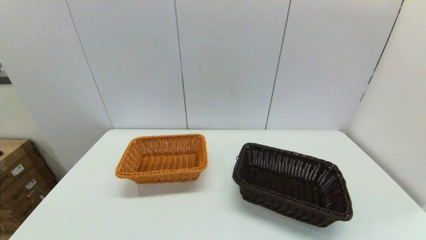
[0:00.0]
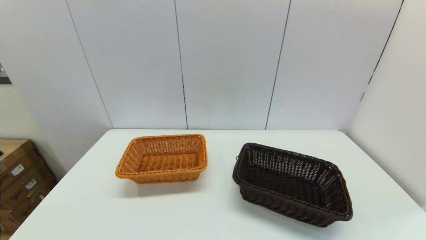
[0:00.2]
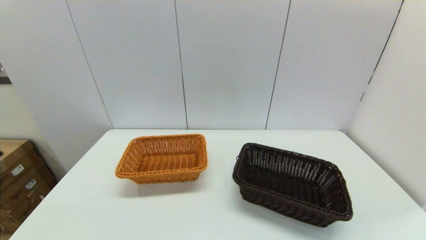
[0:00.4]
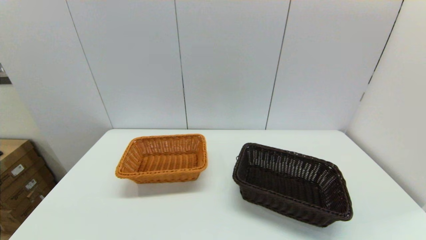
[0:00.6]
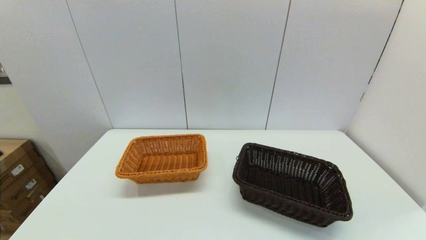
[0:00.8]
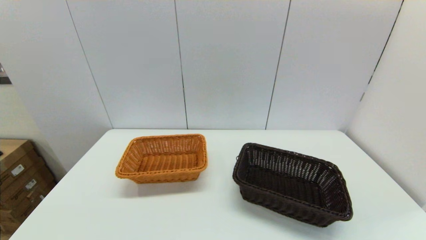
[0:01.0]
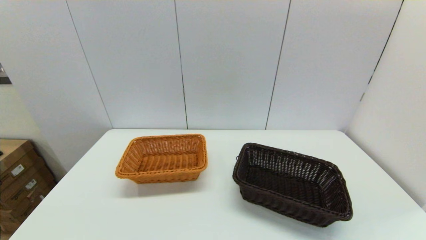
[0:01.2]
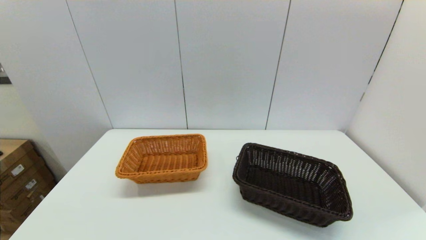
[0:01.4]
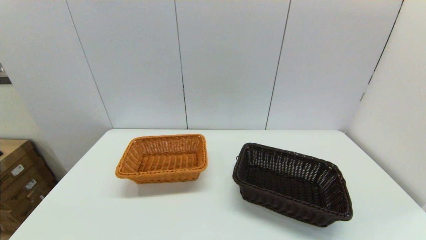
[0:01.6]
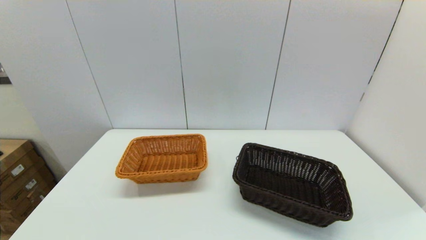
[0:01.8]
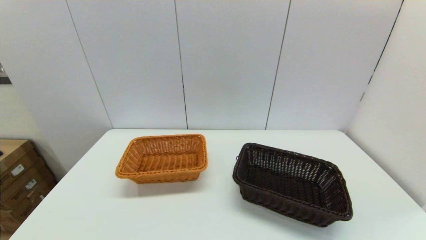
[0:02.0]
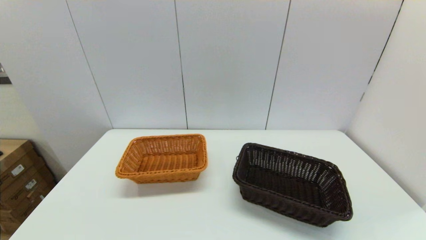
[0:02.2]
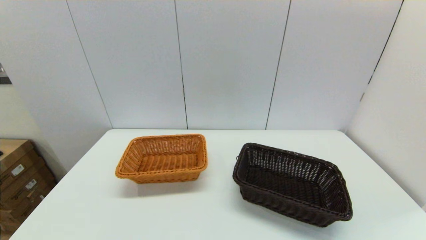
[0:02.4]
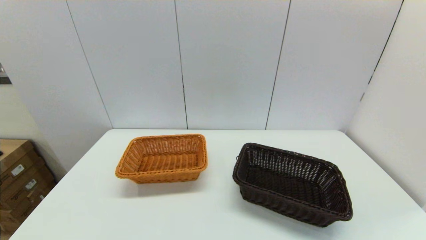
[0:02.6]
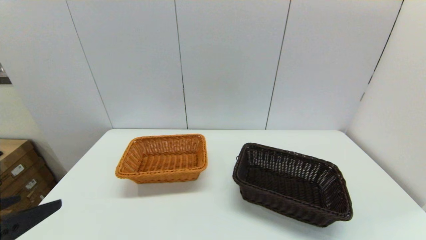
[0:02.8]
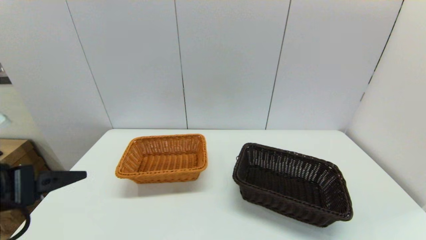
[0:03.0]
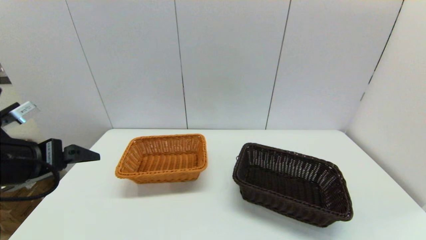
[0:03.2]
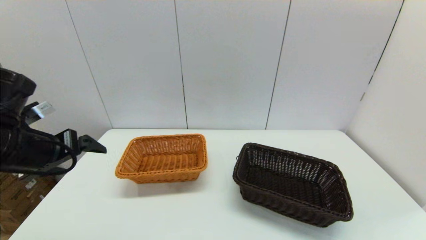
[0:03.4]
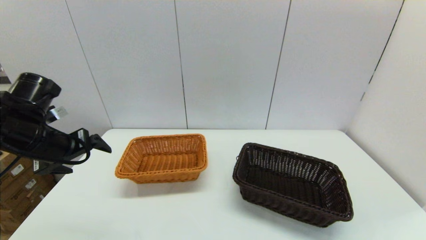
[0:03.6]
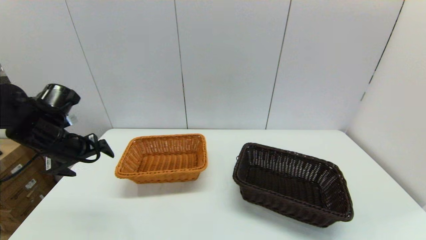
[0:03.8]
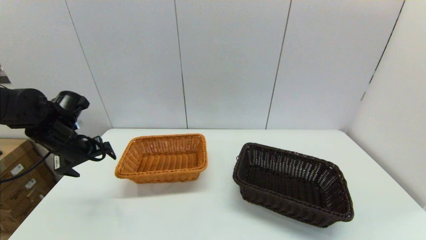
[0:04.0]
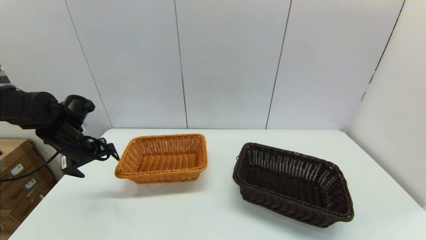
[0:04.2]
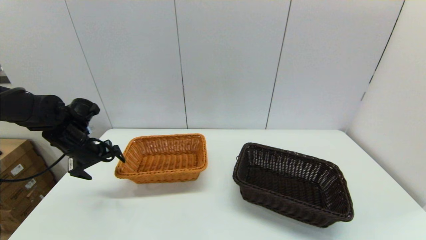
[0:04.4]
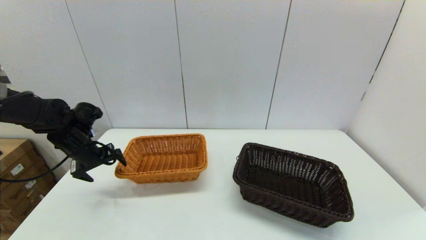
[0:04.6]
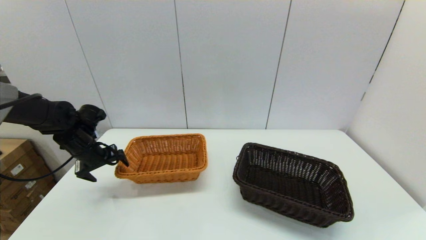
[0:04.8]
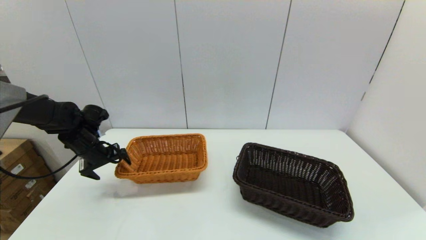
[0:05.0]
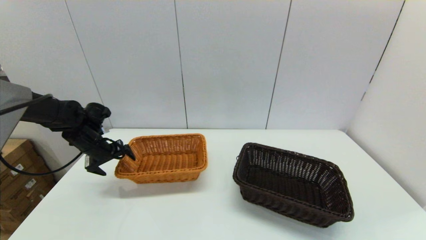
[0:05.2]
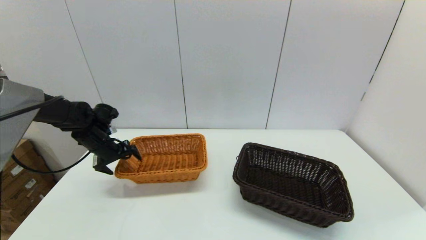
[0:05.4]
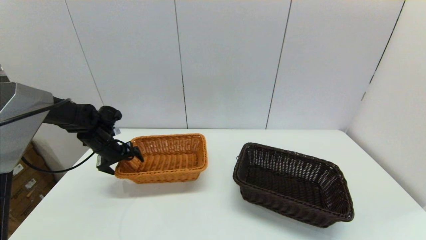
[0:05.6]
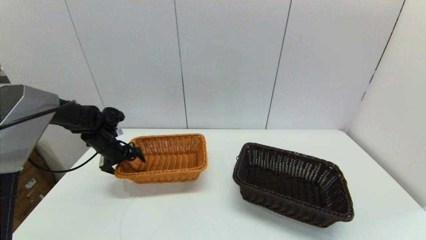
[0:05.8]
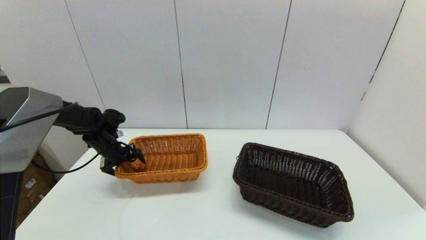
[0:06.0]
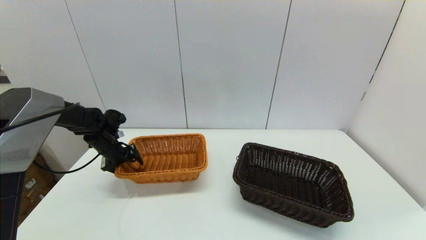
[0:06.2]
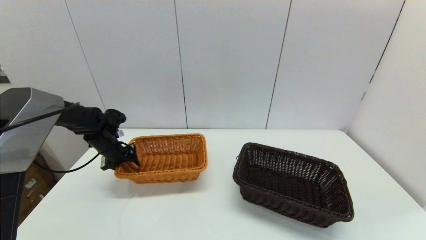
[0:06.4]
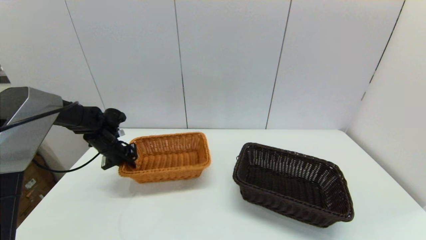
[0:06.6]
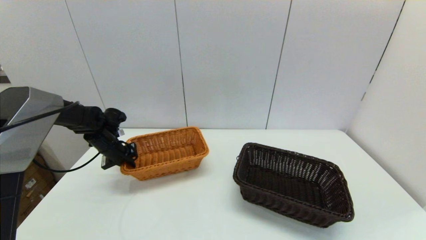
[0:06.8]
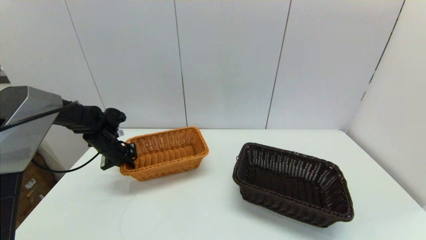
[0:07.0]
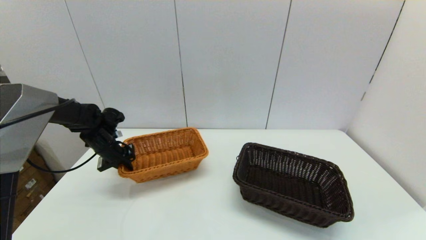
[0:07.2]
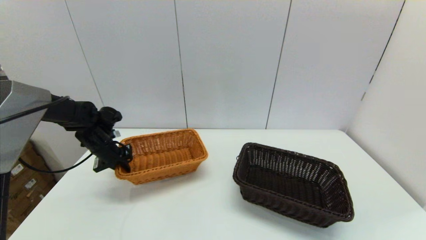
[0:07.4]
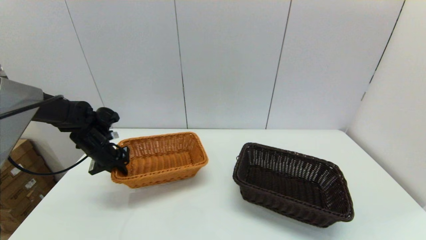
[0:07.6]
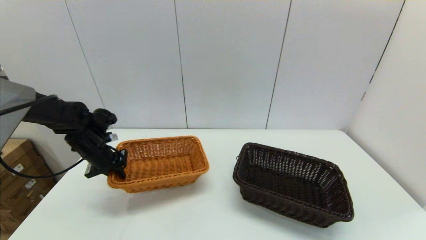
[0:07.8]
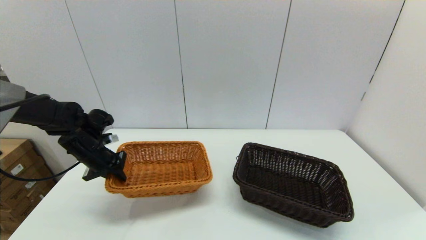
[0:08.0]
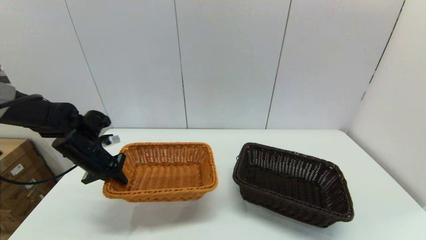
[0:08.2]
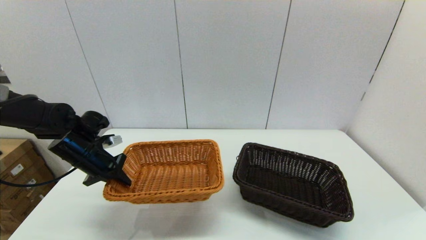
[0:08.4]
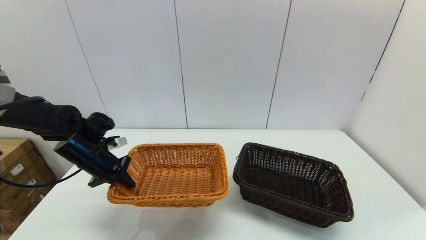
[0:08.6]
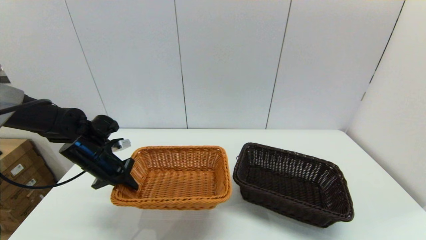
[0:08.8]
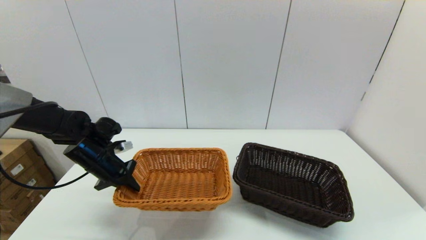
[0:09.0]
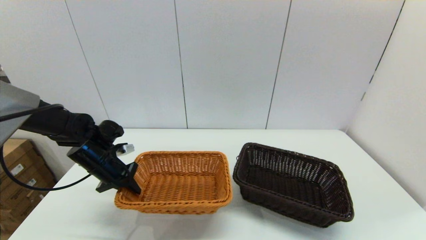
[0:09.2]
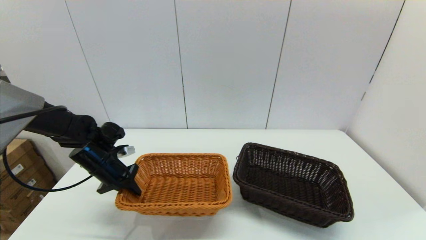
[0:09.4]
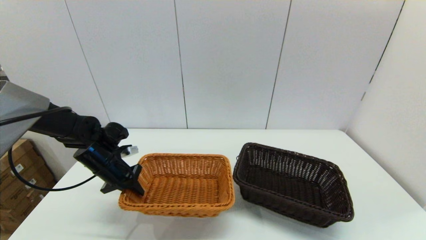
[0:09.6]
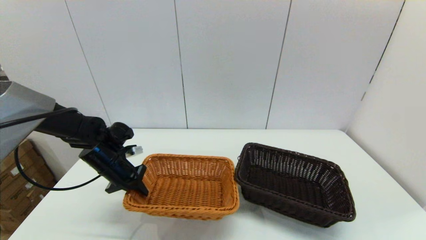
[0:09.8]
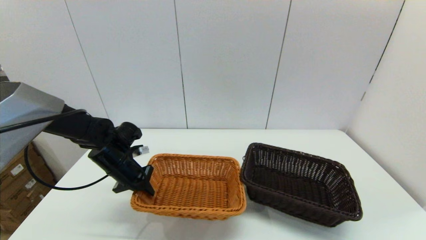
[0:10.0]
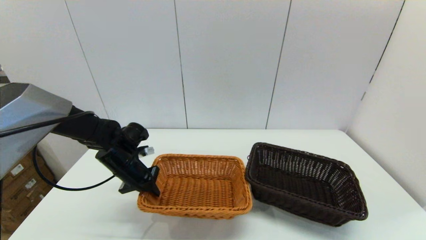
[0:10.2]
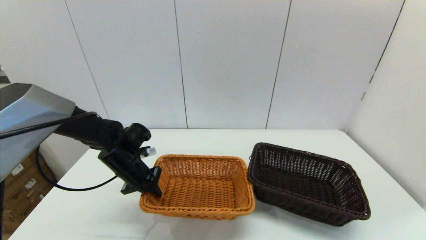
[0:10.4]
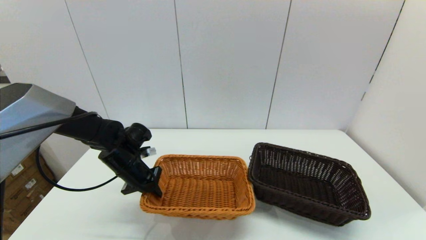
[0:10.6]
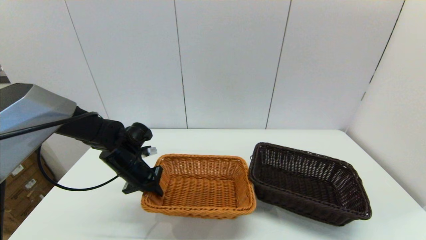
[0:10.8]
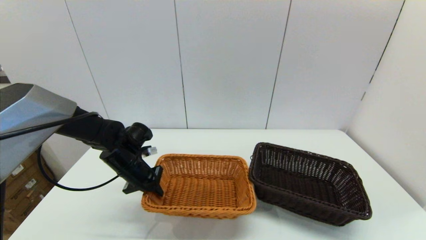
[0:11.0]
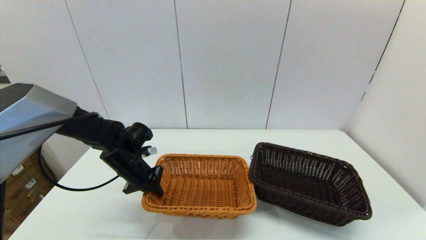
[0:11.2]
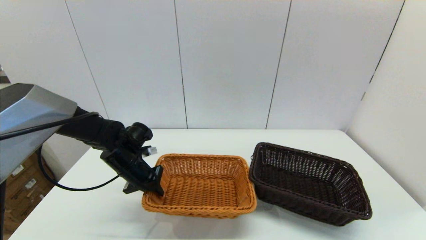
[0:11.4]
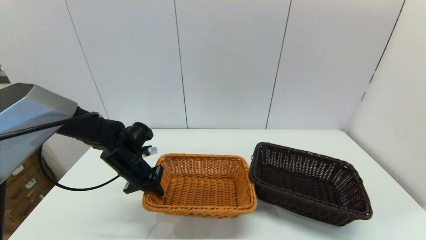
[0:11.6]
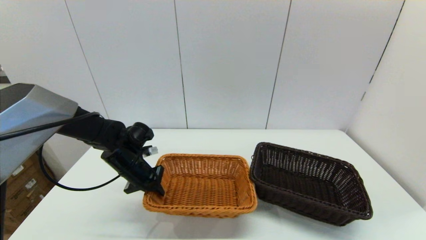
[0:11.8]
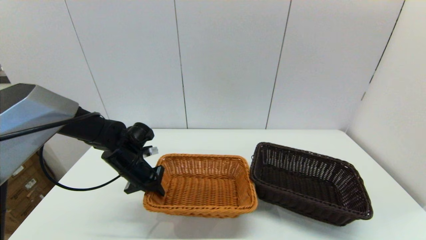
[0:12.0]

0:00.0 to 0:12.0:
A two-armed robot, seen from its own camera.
Task of the whole recording: stack a basket on top of another basket.
Step, 0:02.4 to 0:06.6: Grasp the light basket with the left gripper.
0:01.6 to 0:03.0: The left gripper goes about 20 cm forward and upward.
0:03.0 to 0:04.4: The left gripper is displaced forward and downward by roughly 25 cm.
0:04.4 to 0:06.0: The left gripper heads forward and downward, covering roughly 10 cm.
0:06.0 to 0:07.6: The left gripper closes its fingers.
0:07.6 to 0:09.0: The left gripper shifts by about 5 cm.
0:09.0 to 0:10.4: The left gripper travels to the right by roughly 5 cm.
0:10.4 to 0:12.0: The two grippers keep their place.

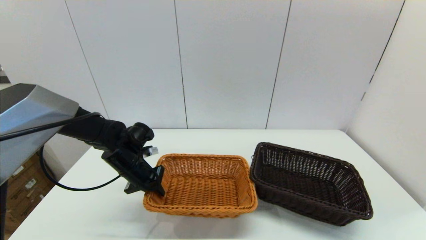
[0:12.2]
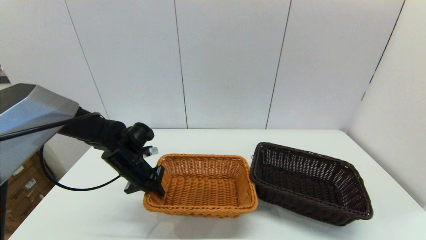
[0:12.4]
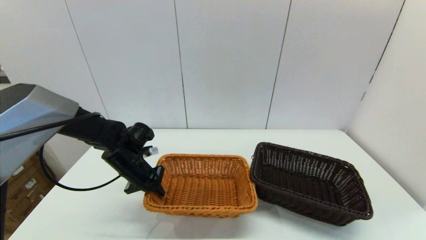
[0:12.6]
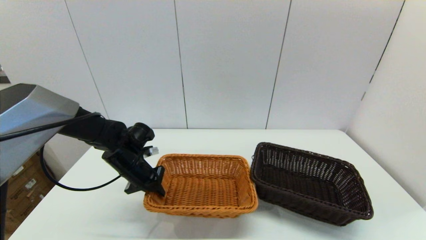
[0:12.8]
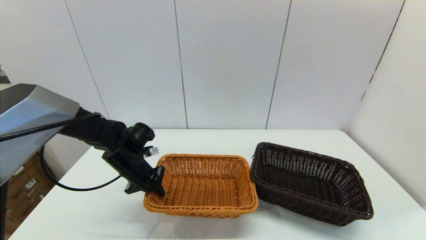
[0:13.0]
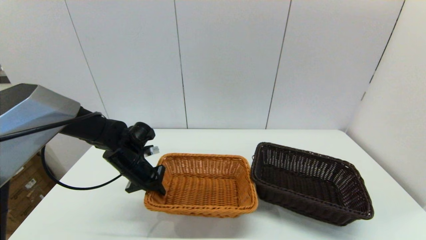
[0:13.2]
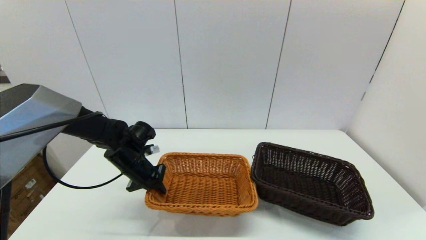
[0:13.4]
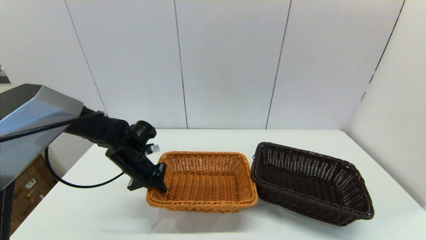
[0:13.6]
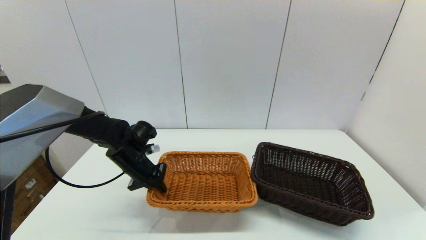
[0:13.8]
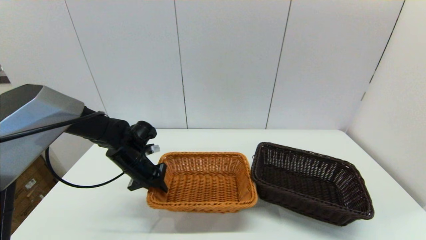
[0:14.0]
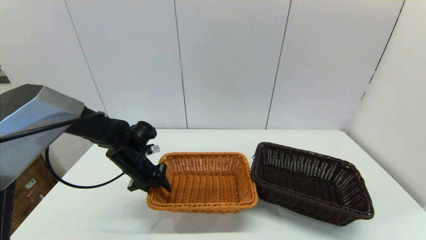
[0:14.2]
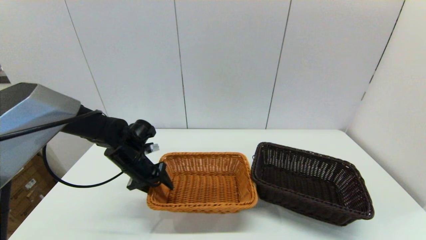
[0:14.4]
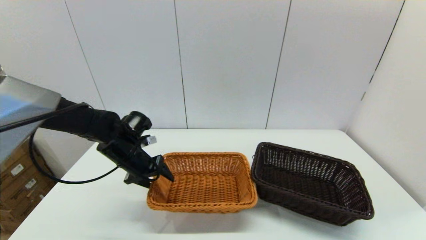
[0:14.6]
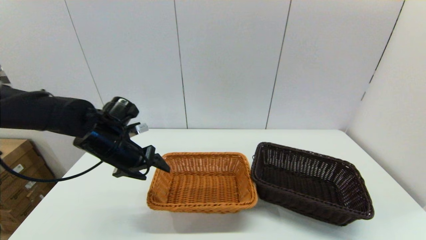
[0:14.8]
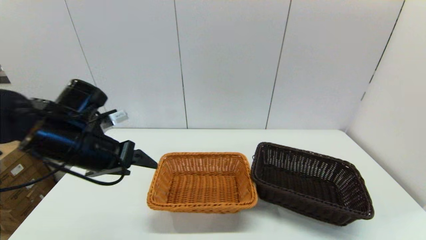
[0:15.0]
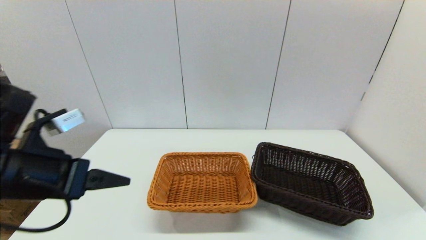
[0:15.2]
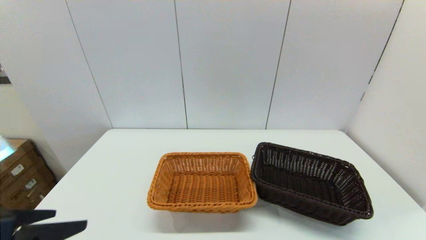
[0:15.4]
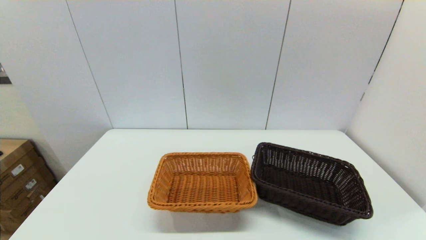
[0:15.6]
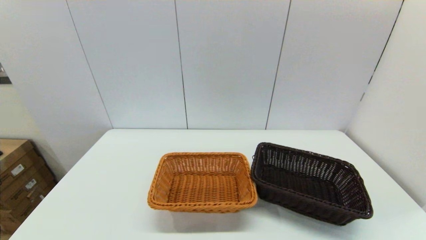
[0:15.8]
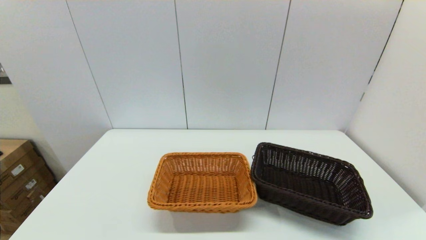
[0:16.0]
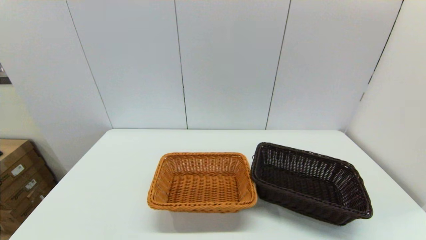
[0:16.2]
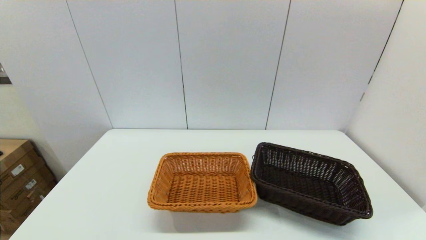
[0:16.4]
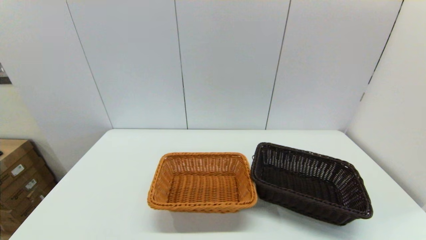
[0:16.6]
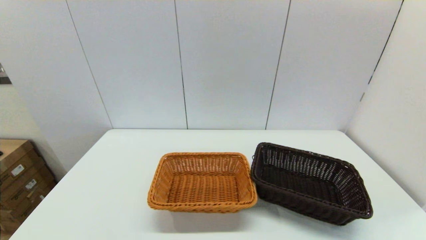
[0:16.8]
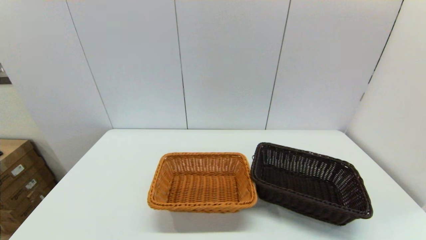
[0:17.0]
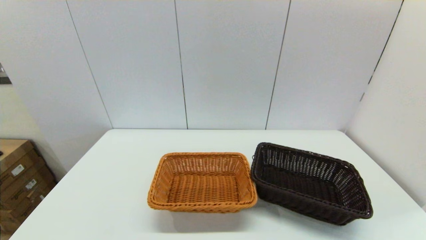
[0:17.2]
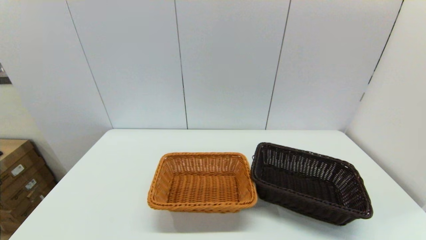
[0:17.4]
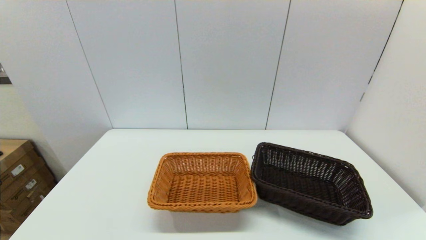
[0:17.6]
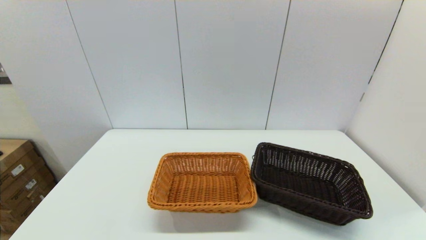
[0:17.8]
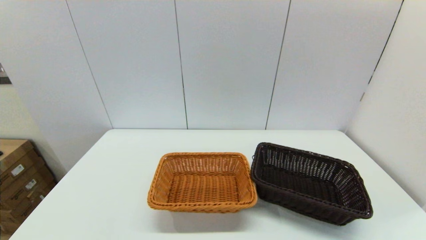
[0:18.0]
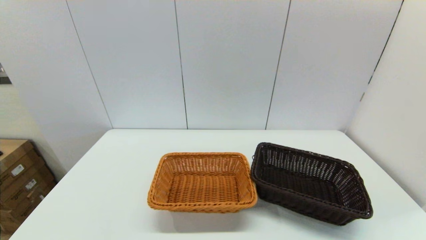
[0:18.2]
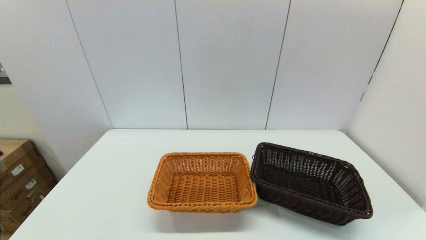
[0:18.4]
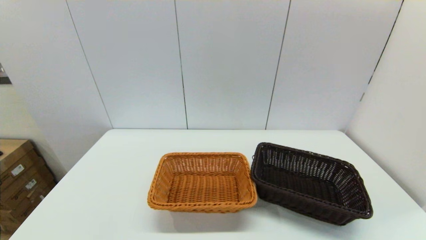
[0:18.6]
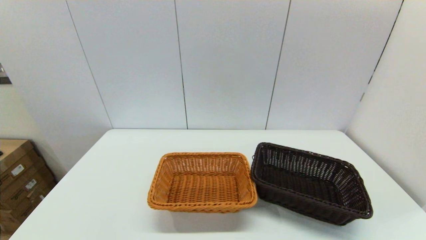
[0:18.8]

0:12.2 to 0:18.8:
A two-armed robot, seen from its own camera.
Task of the whole recording: stack a basket on top of another basket.
Step, 0:12.2 to 0:15.0: Place the light basket on the middle of the table with the left gripper.
0:12.2 to 0:13.8: Both grippers stay about where they are.
0:13.8 to 0:15.4: The left gripper travels backward and upward by roughly 30 cm, and opens its fingers.
0:15.4 to 0:17.2: The left gripper is displaced downward and backward by roughly 20 cm.
